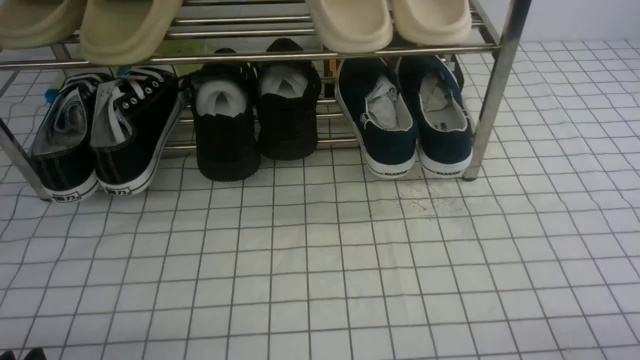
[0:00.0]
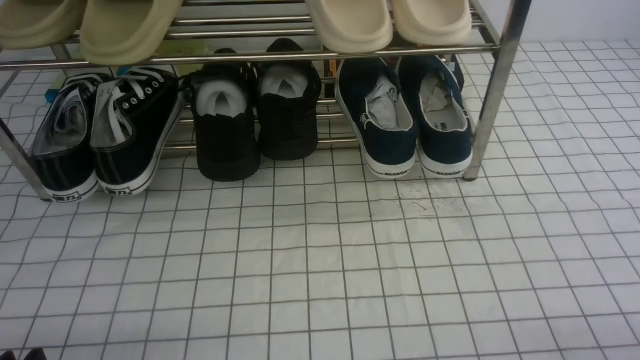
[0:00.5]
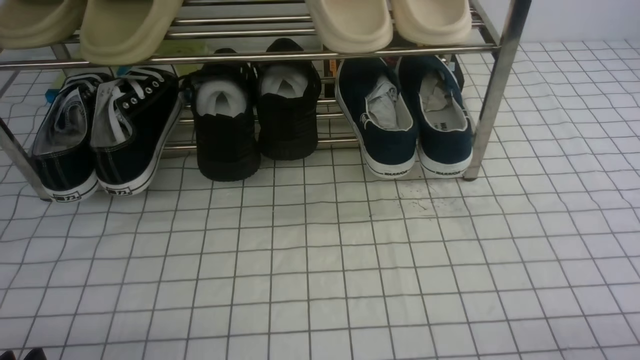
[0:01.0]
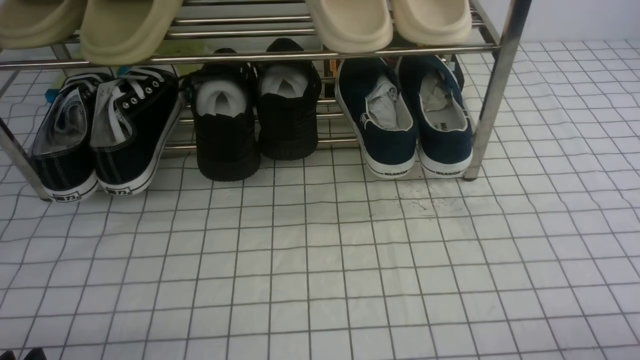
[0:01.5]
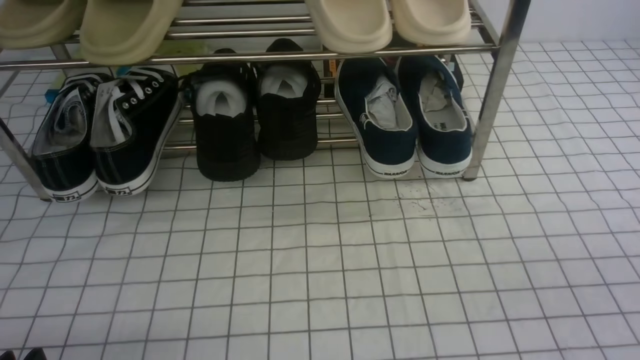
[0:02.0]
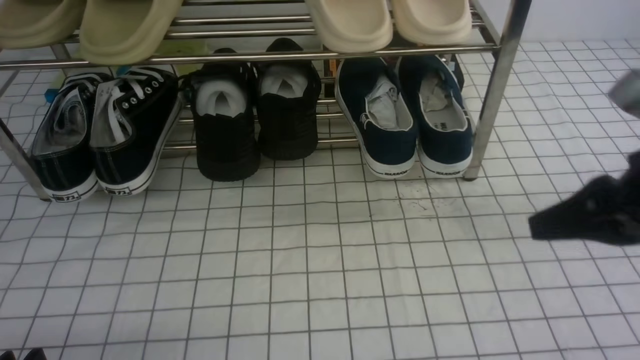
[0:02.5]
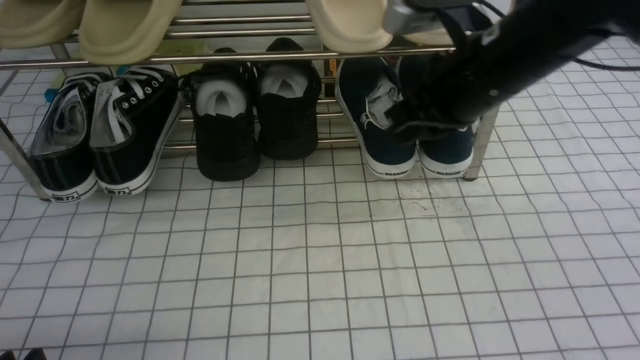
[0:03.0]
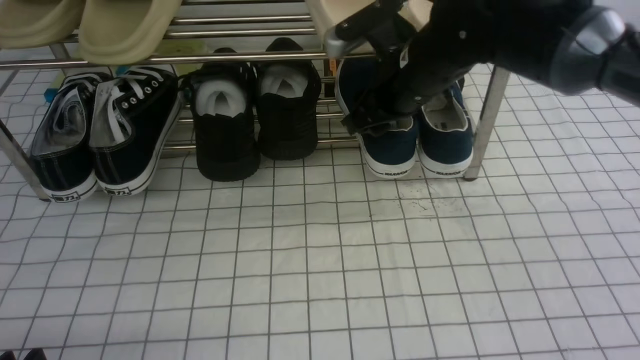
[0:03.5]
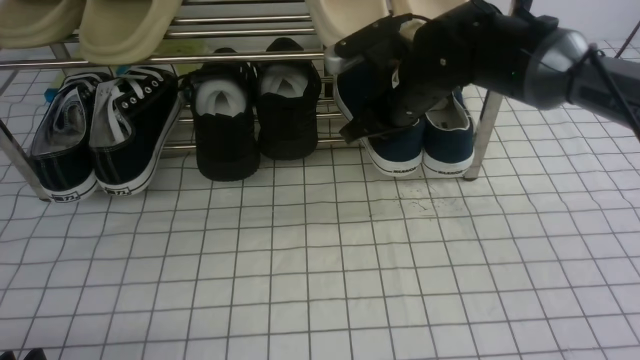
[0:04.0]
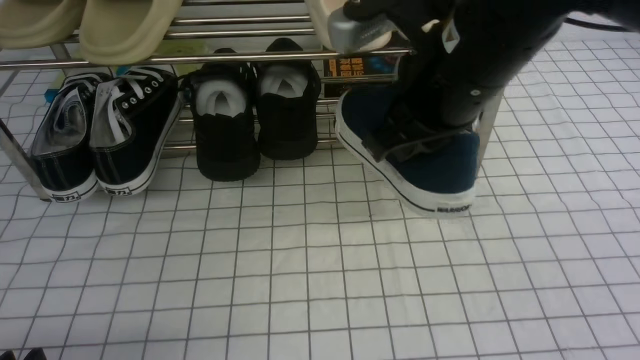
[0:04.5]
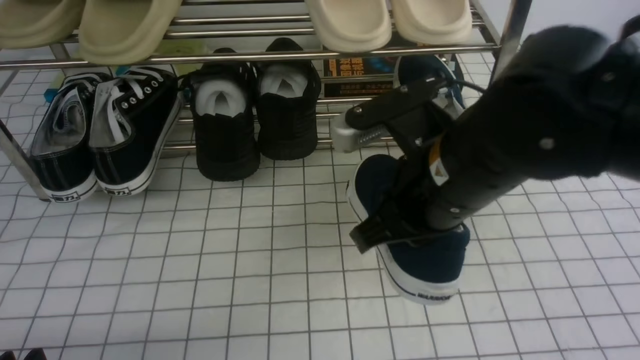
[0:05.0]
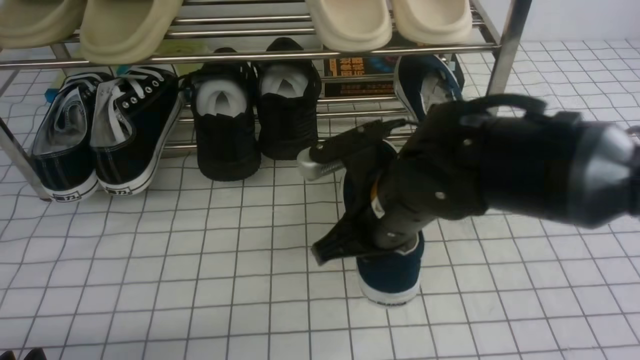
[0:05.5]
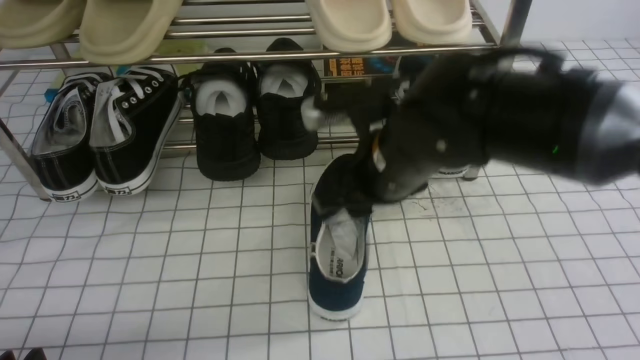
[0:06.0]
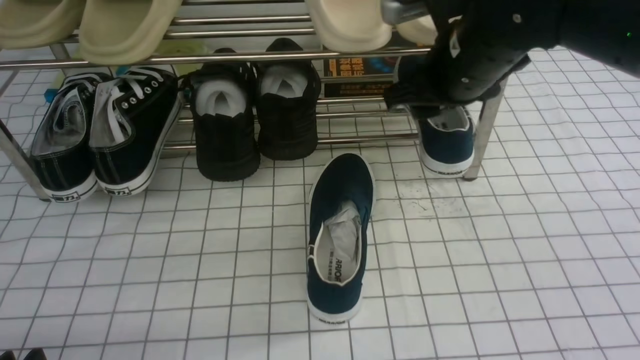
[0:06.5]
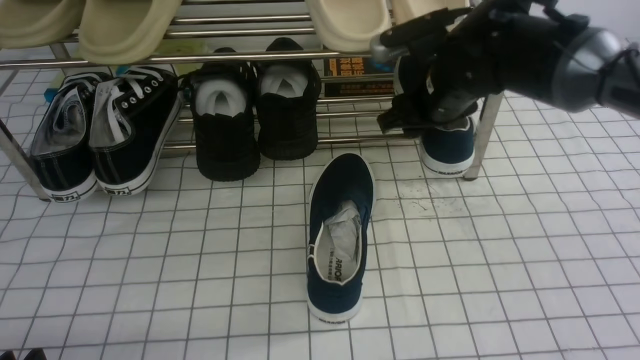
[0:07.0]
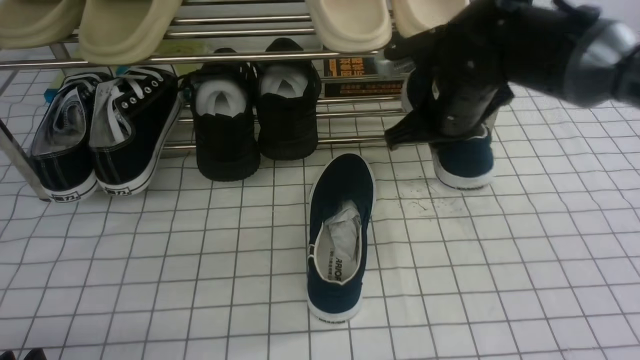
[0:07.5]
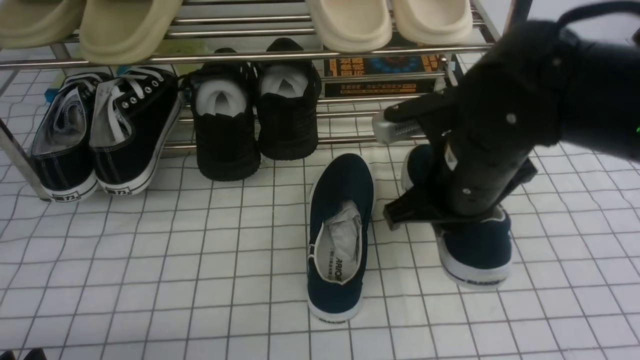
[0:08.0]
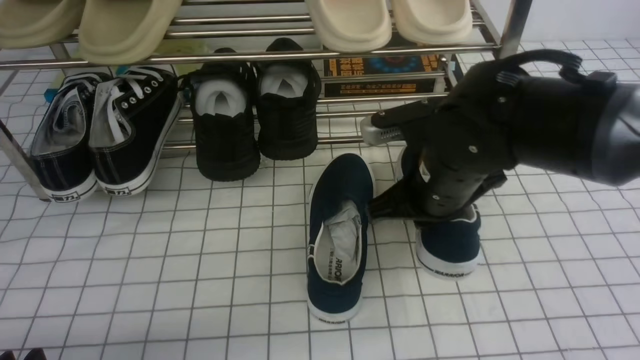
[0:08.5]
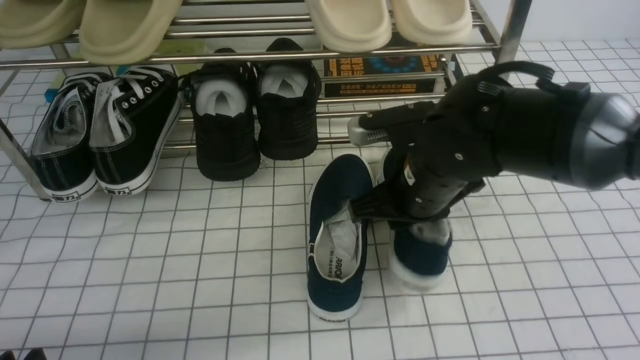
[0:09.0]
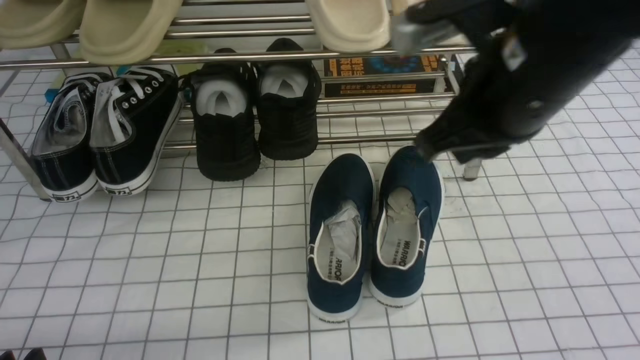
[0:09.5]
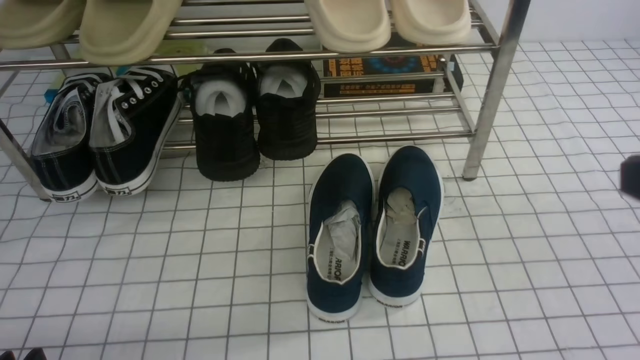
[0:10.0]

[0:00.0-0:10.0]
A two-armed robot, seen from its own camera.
Step, 0:00.0 to 0:03.5: use the right arm to clamp a shoe on the right side of the shoe rack.
Step, 0:04.0 to 0:06.0: use the right arm to take out the clamped shoe from the shoe rack and put it down.
Step, 0:06.5 to 0:07.0: use the right arm to clamp a shoe on the right side of the shoe rack.
Step, 0:07.5 to 0:09.0: use the right arm to take out the clamped shoe from the shoe rack and put it down.
0:02.0 to 0:04.0: The right gripper moves forward and to the left, roughly 40 cm, and opens, then closes once more.
0:04.0 to 0:06.0: The right gripper moves backward, approximately 10 cm, and opens up.
0:06.0 to 0:08.0: The right gripper reaches approximately 10 cm forward, then returns, and closes its fingers.
0:08.0 to 0:10.0: The right gripper shifts about 25 cm backward, to the right and upward, and opens, then closes again.

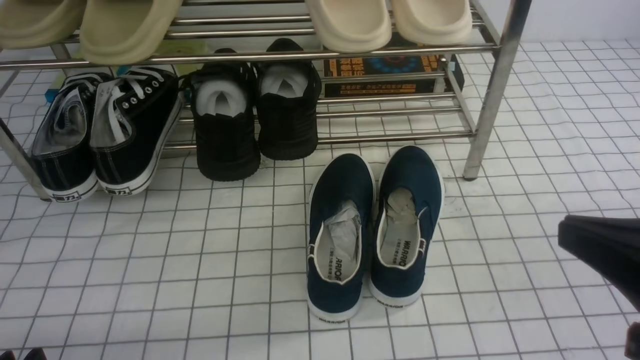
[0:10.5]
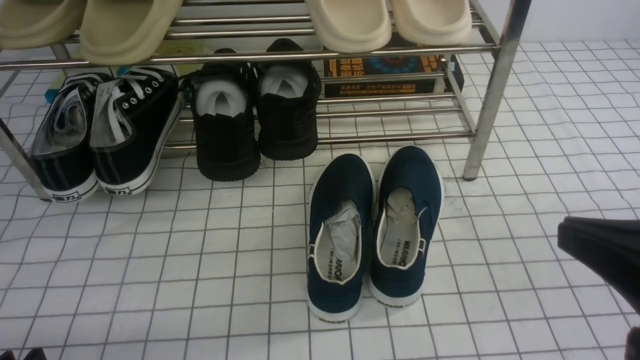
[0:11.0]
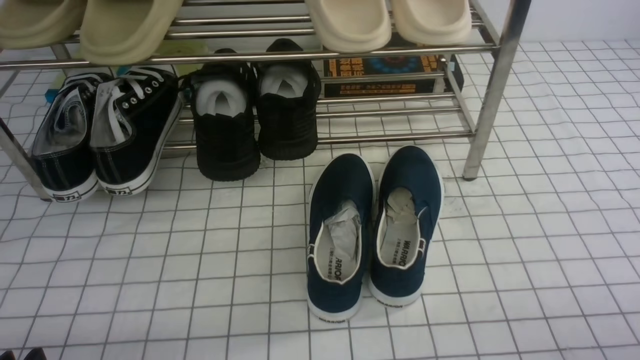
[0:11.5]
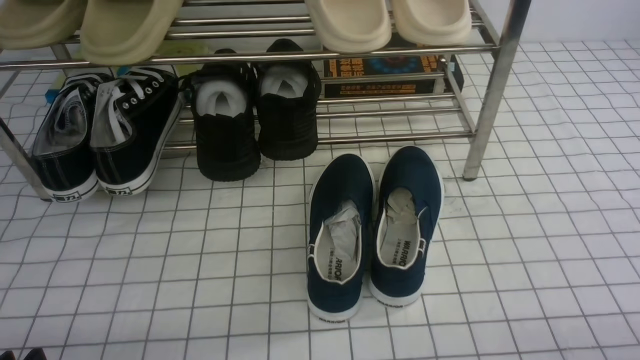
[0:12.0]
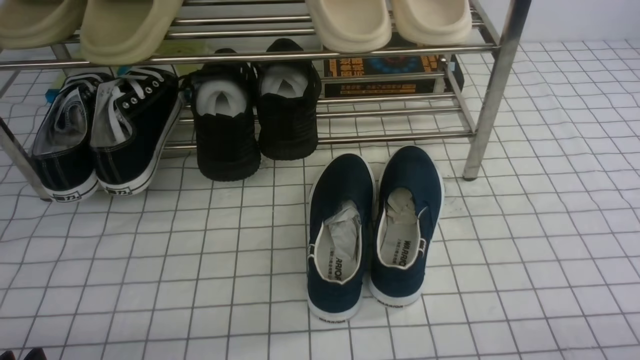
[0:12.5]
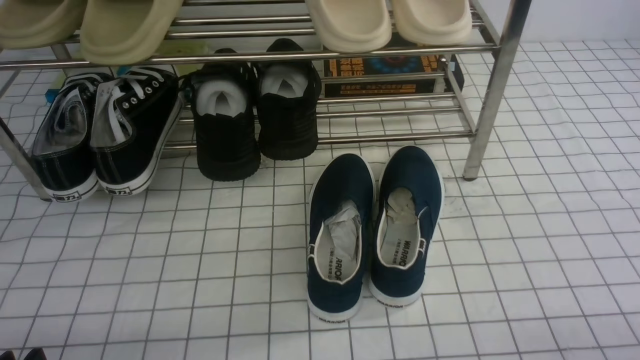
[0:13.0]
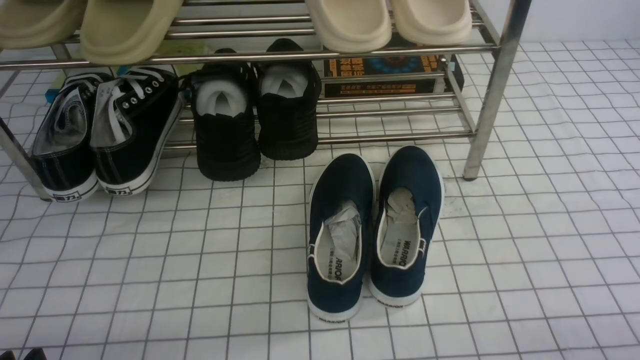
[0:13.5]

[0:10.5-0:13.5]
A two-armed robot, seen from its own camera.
0:10.5 to 0:12.0: The right gripper moves downward and to the right, approximately 15 cm.
0:12.0 to 0:13.5: Neither gripper changes place.

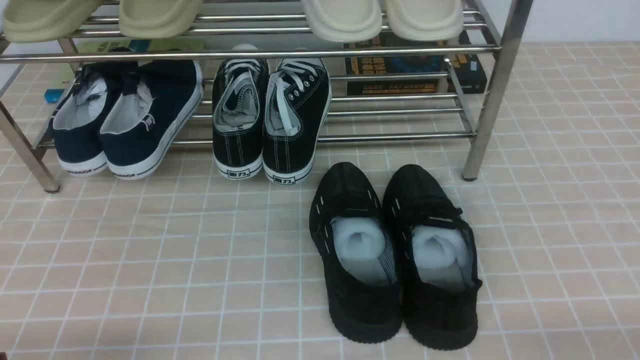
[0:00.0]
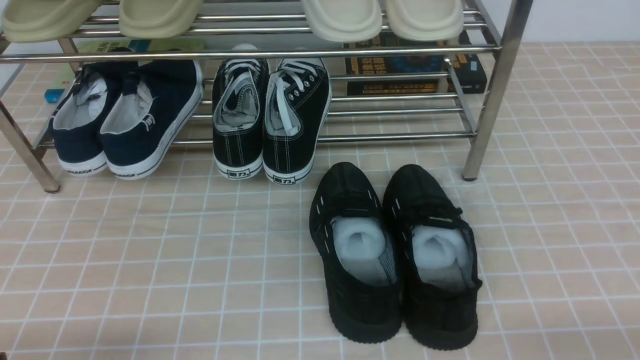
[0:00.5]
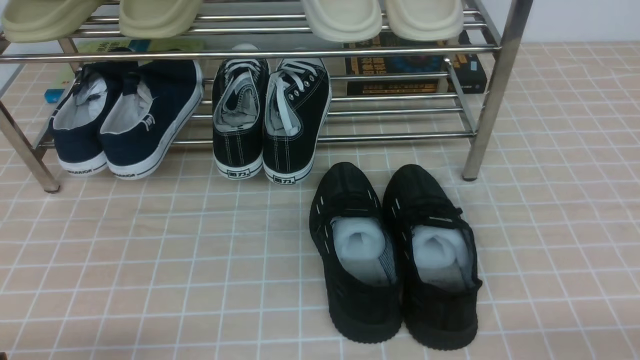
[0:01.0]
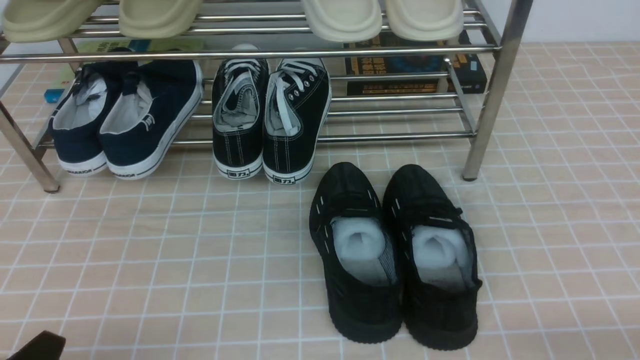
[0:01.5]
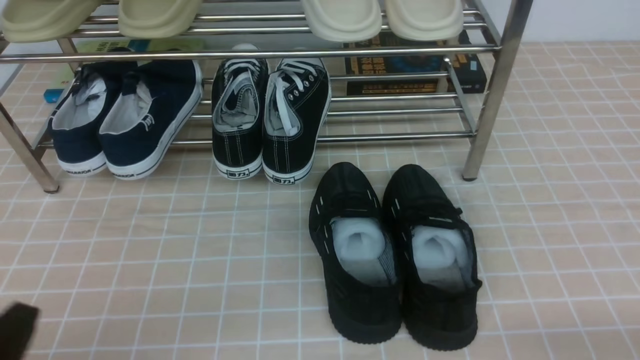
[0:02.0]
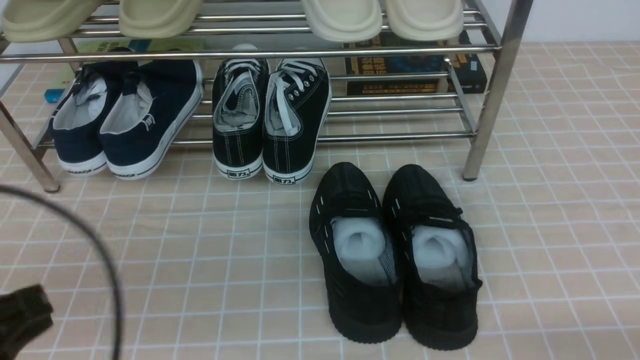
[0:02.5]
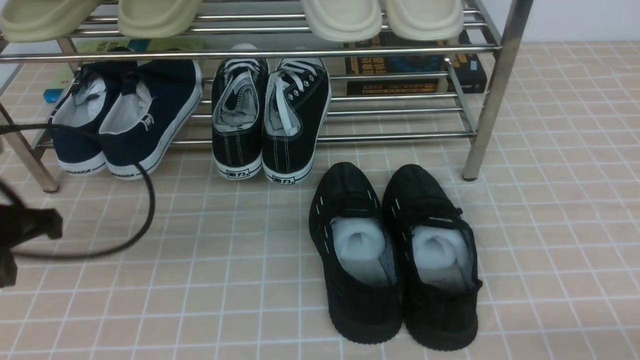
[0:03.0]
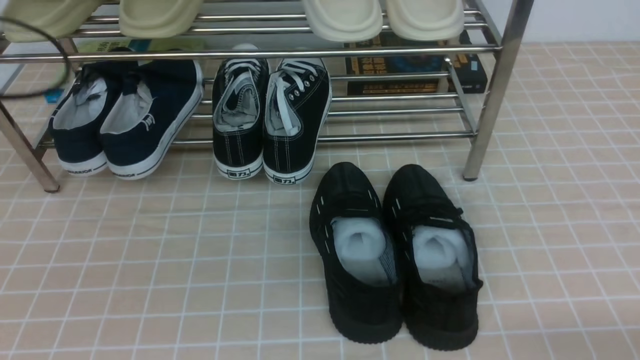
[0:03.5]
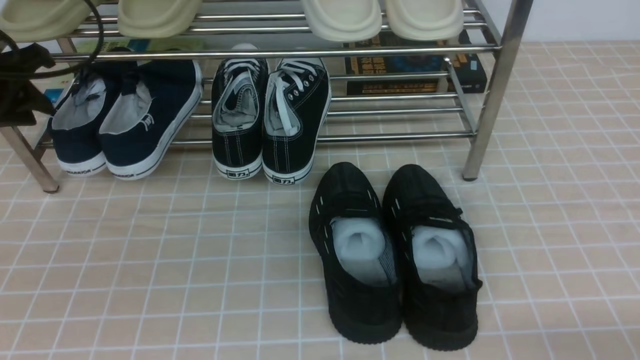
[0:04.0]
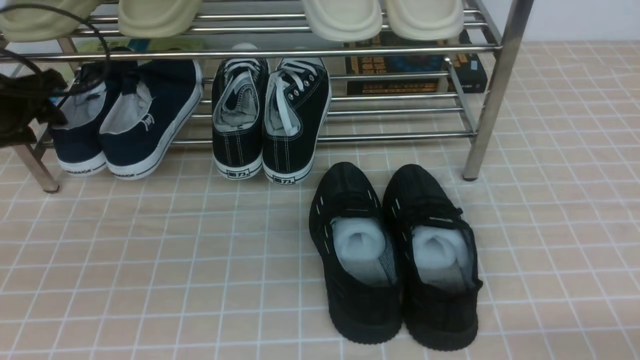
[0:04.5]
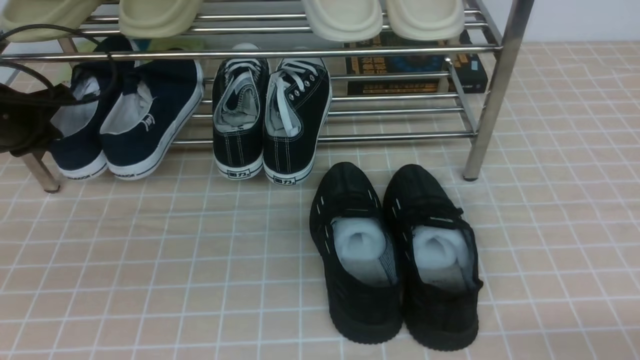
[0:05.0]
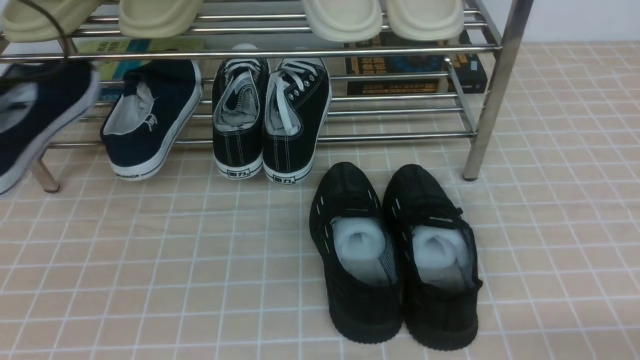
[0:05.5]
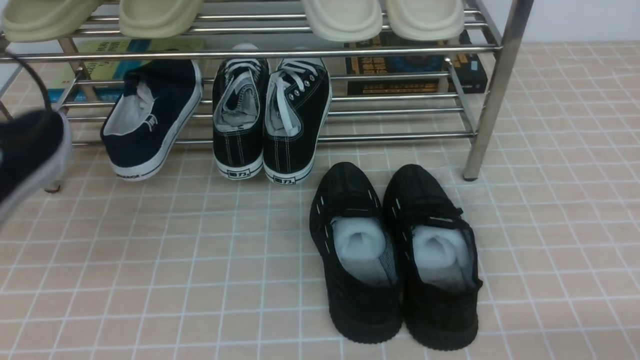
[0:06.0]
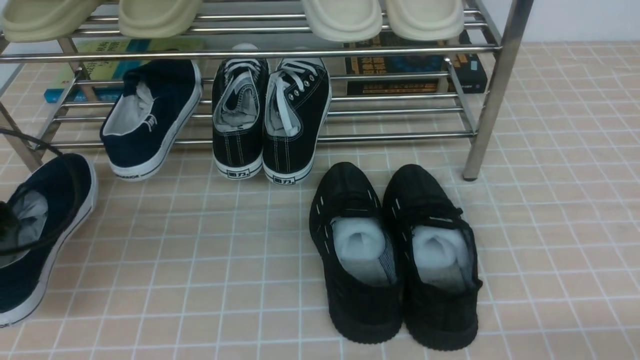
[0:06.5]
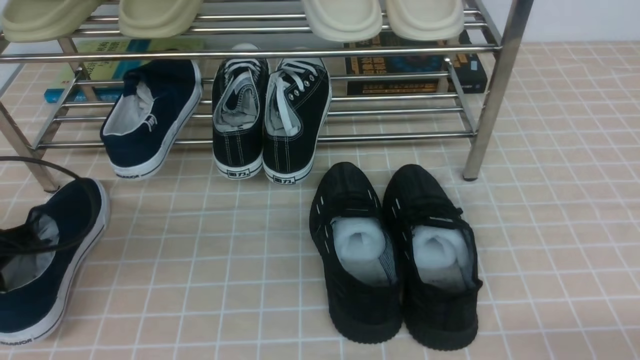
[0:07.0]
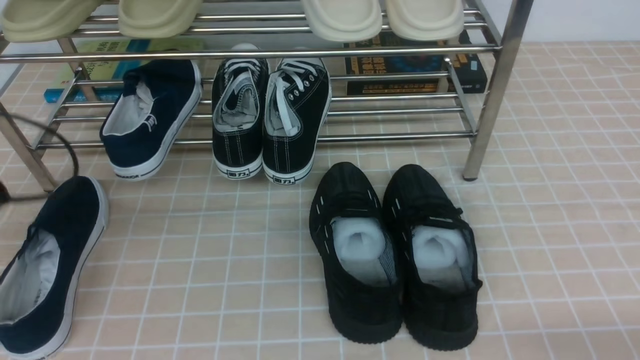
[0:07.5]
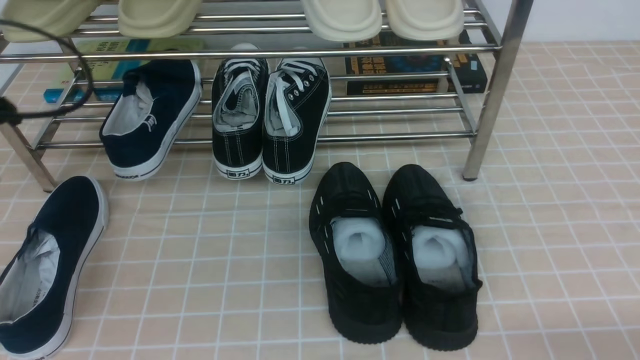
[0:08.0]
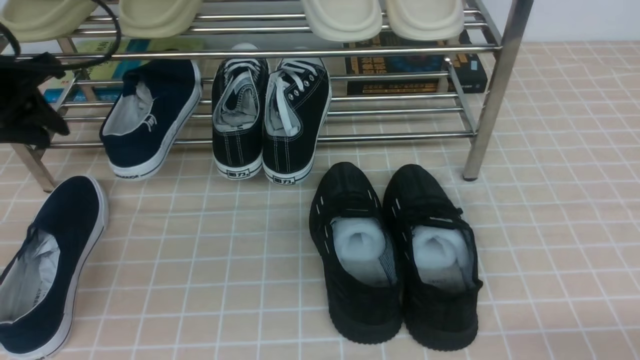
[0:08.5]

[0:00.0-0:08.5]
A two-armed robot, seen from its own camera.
Step, 0:00.0 to 0:05.0: use the left arm to clamp a shoe on the left side of the shoe rack.
Step, 0:05.5 to 0:07.0: Use your left arm to remove the clamped shoe from the shoe rack and put it down.
0:00.0 to 0:02.0: The left gripper heads upward, covering approximately 5 cm.
0:02.0 to 0:04.0: The left gripper travels forward by approximately 30 cm, and closes, then reopens.
0:04.0 to 0:06.5: The left gripper goes roughly 15 cm backward, and closes.
0:06.5 to 0:08.5: The left gripper goes about 15 cm forward and upward, and opens.
